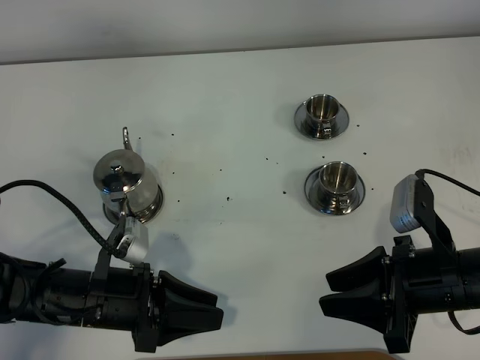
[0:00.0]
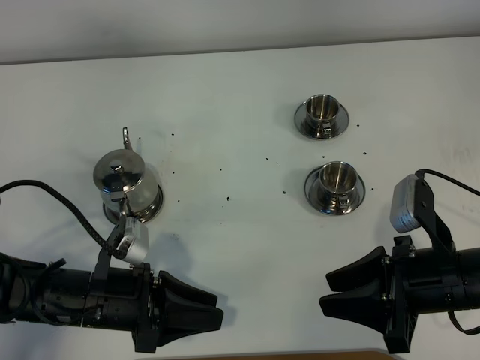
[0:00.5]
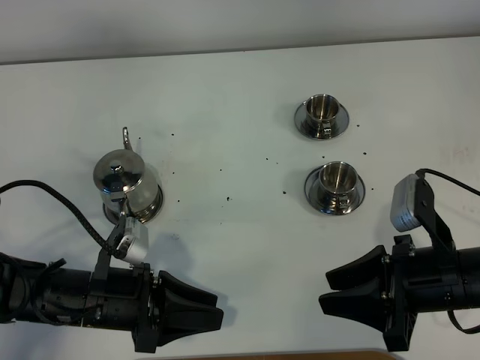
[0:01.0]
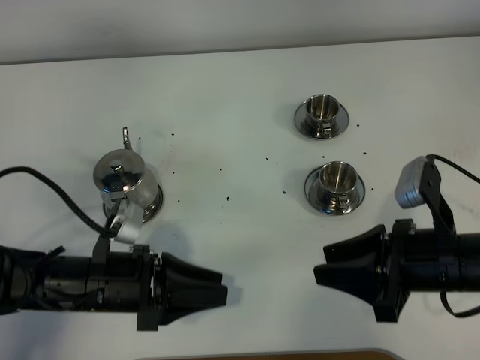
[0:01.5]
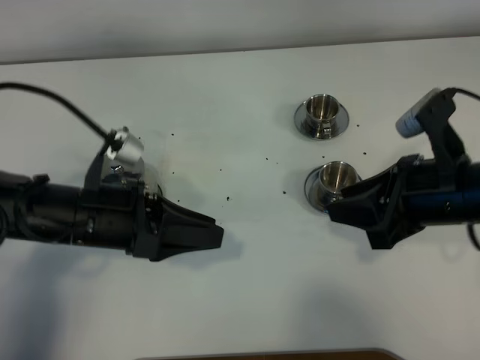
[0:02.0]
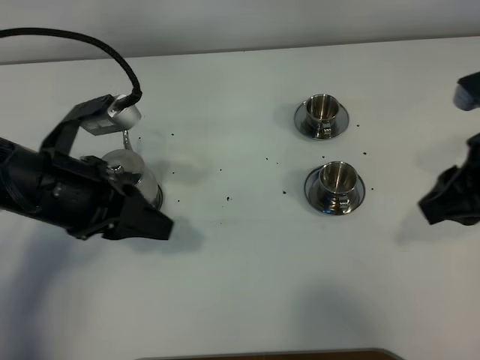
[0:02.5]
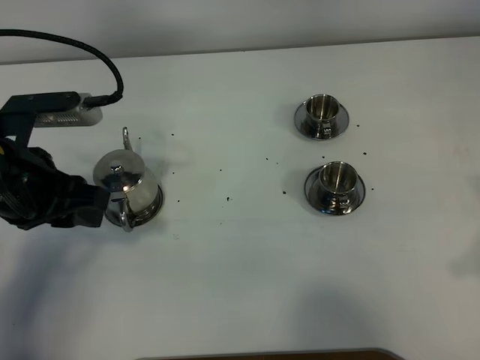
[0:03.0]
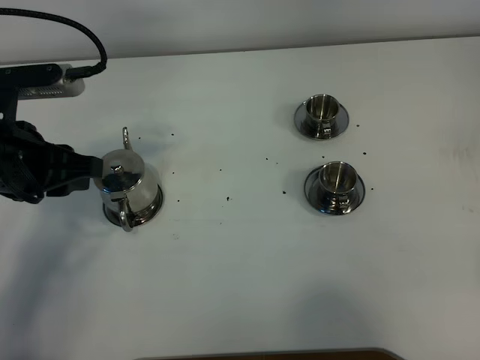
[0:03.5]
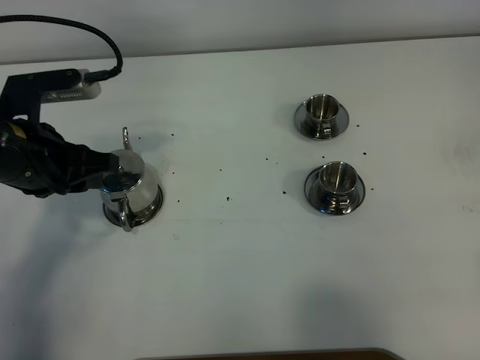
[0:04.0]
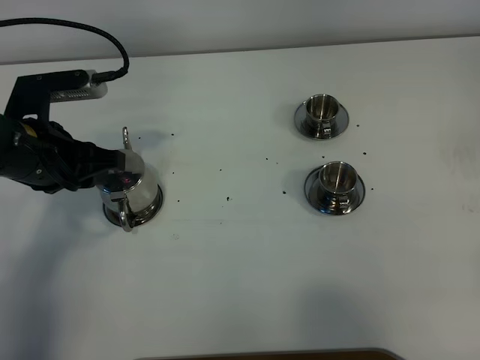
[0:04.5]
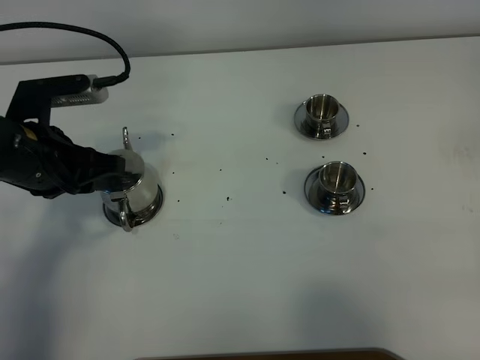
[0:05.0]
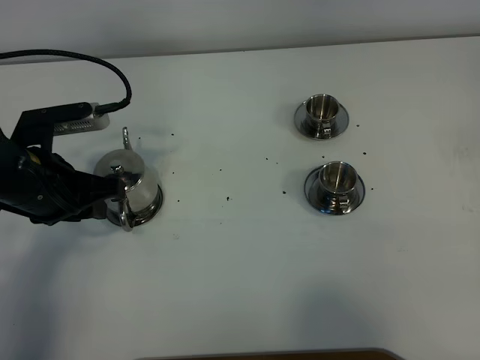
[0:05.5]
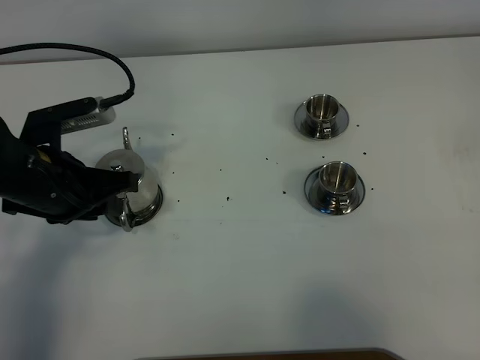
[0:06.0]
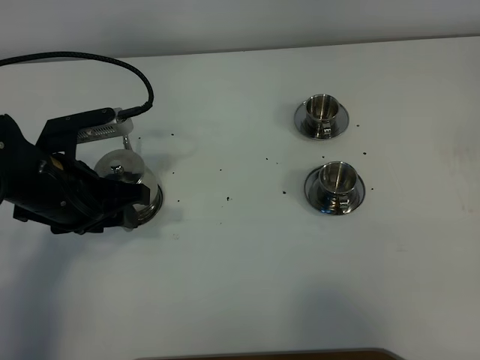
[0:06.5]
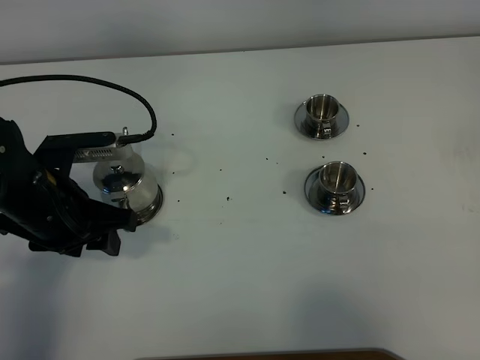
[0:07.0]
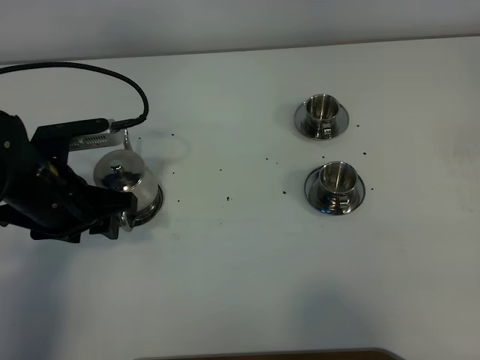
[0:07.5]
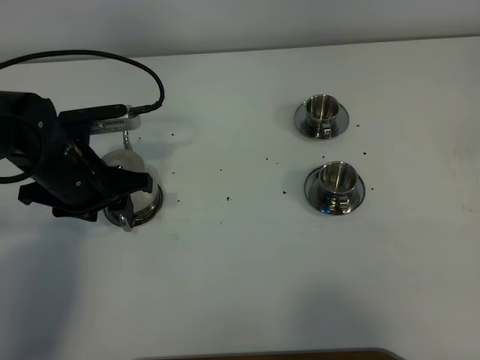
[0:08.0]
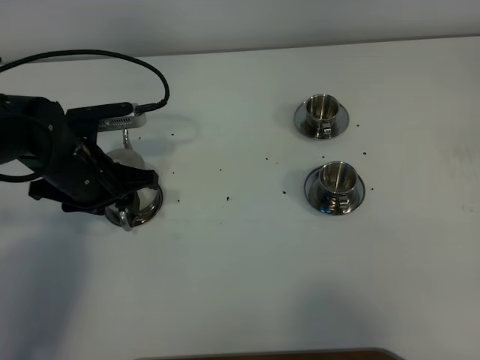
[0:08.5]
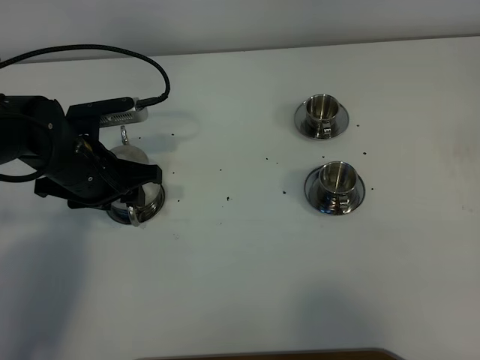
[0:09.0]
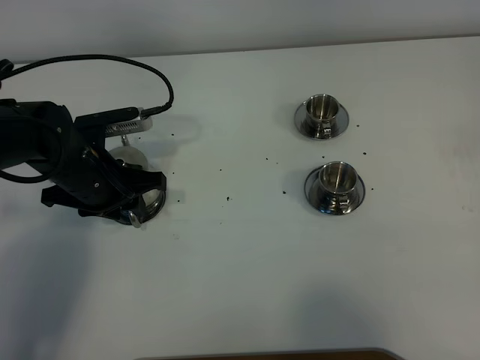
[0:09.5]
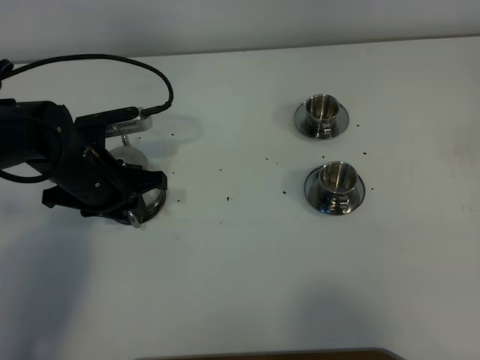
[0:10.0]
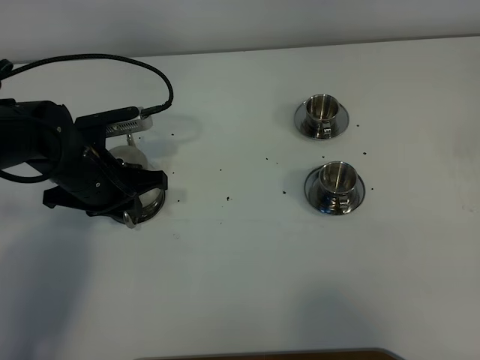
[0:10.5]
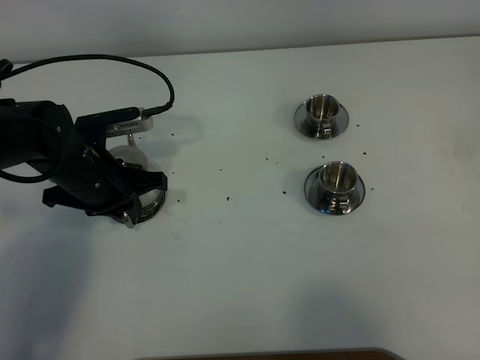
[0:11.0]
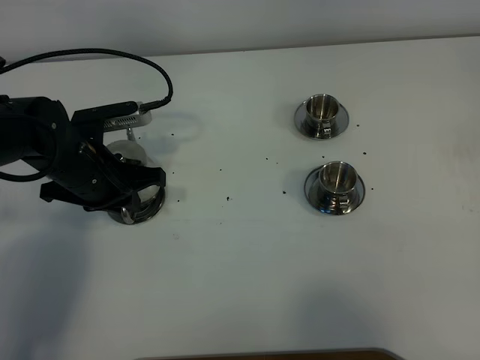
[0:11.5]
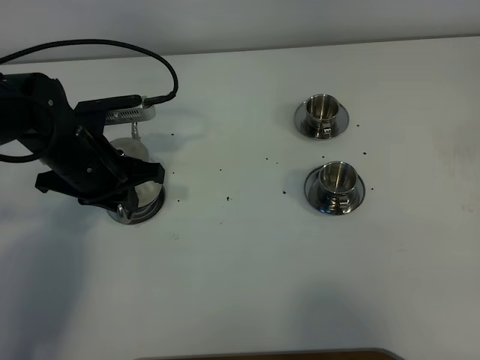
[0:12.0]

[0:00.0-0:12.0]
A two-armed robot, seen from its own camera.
Task of the whole recording: grasp the stainless steel teapot and pour the tea into the two stainless steel teacups one by one, put the stainless steel teapot back in its original place.
Step, 0:00.0 to 0:11.5: Pick up the teapot with the left gripper.
0:00.0 to 0:02.0: Both grippers move upward and forward, roughly 10 cm.
0:02.0 to 0:04.0: The right gripper shifts roughly 25 cm backward and to the right, while the left gripper shifts roughly 10 cm to the left and forward.
0:06.0 to 0:08.0: The left gripper opens its fingers.
0:08.0 to 0:10.0: The left gripper closes.
0:10.0 to 0:12.0: The left gripper closes up.

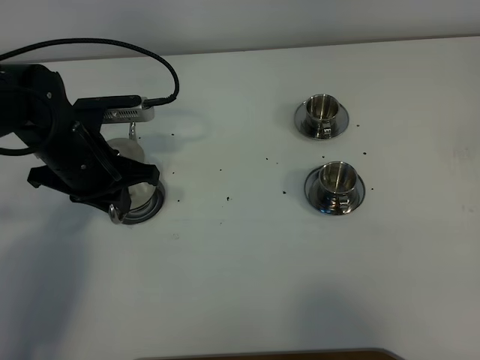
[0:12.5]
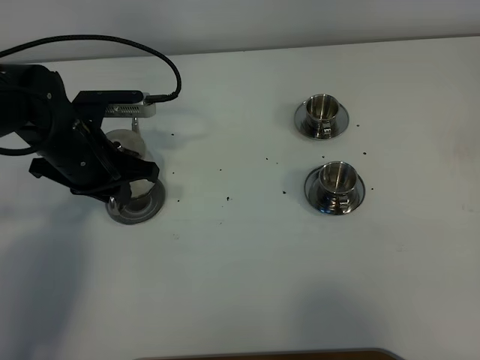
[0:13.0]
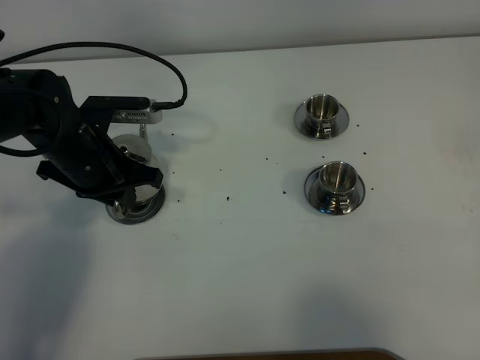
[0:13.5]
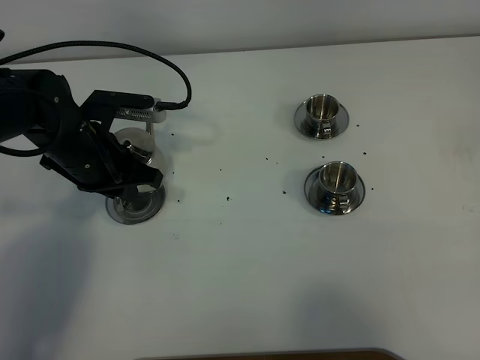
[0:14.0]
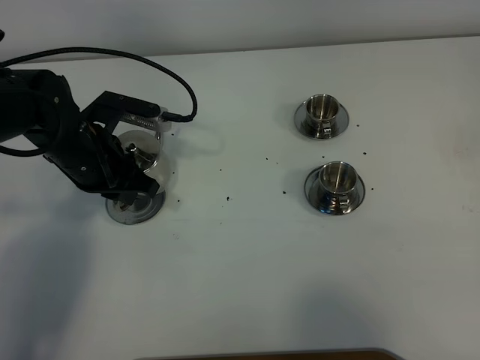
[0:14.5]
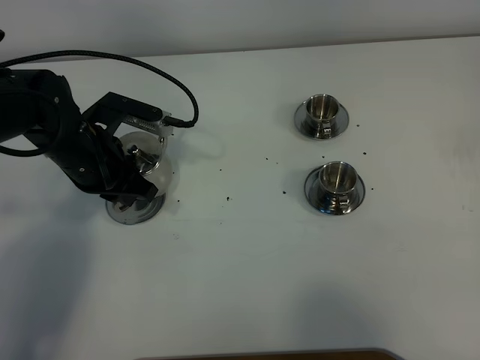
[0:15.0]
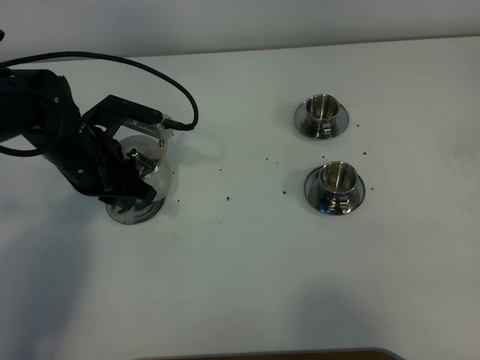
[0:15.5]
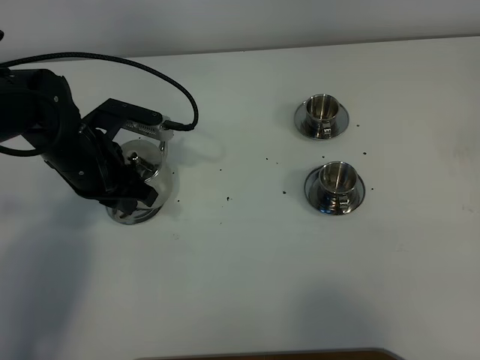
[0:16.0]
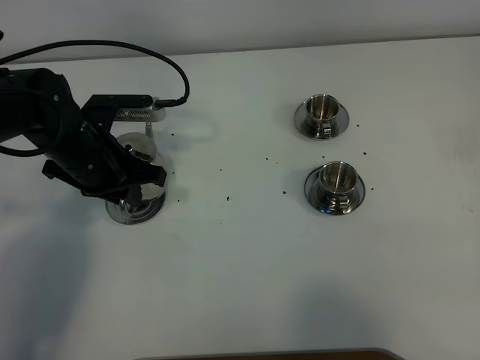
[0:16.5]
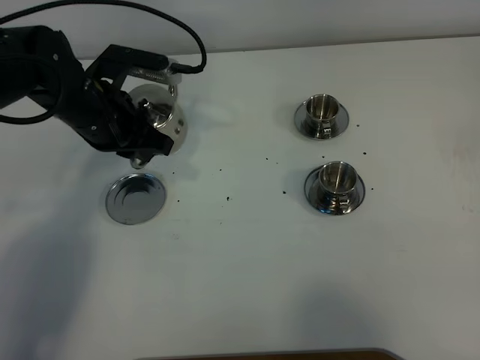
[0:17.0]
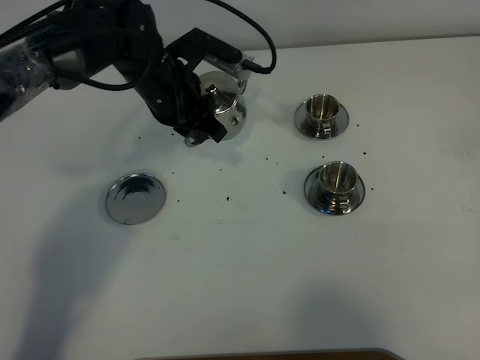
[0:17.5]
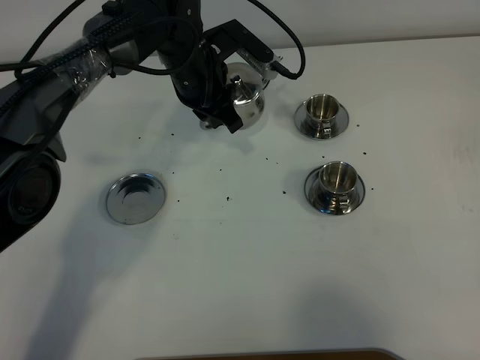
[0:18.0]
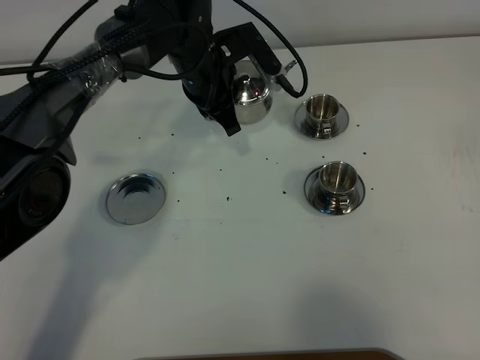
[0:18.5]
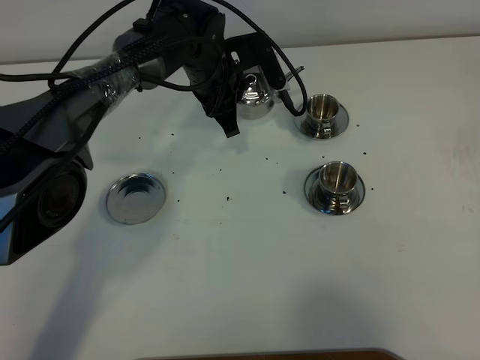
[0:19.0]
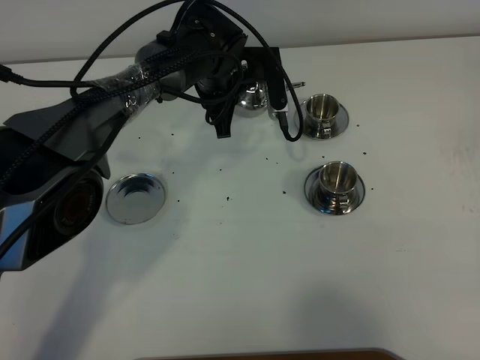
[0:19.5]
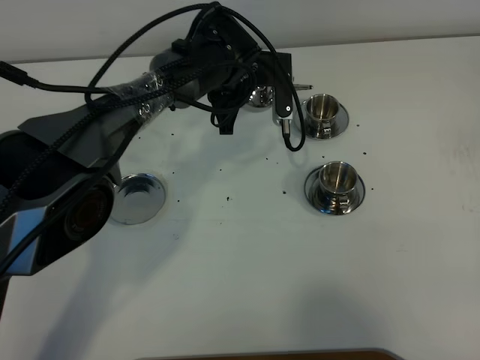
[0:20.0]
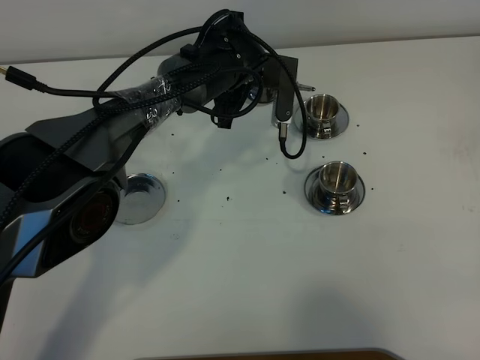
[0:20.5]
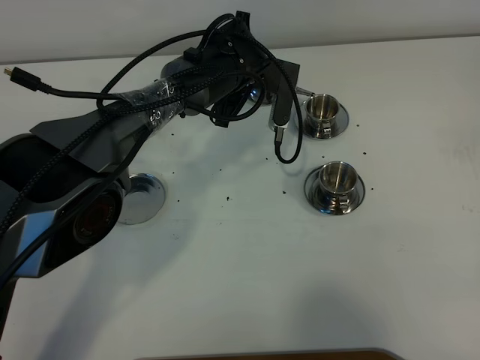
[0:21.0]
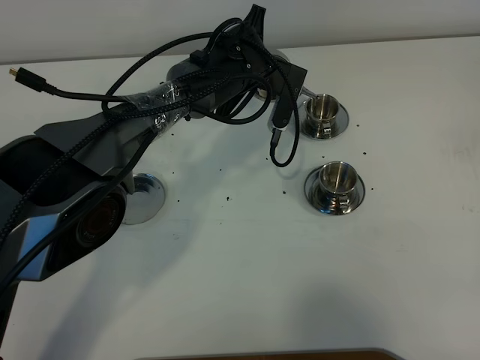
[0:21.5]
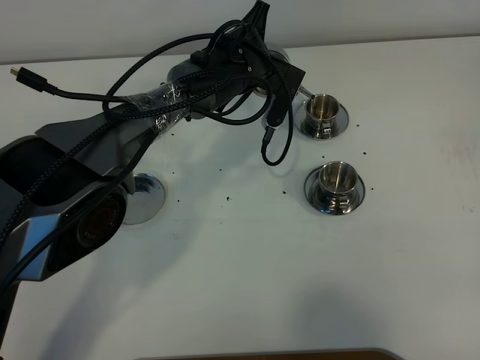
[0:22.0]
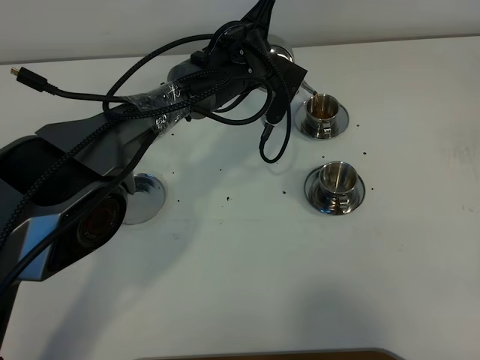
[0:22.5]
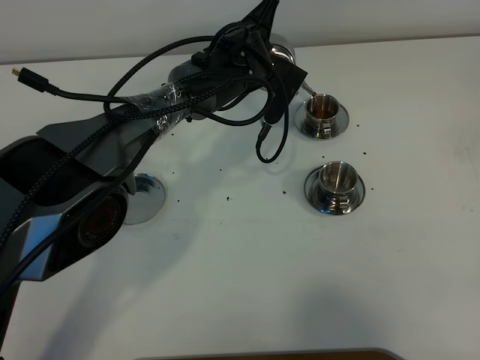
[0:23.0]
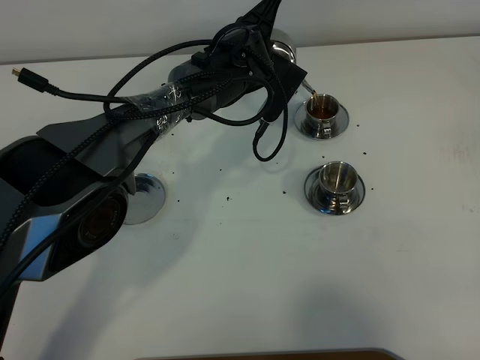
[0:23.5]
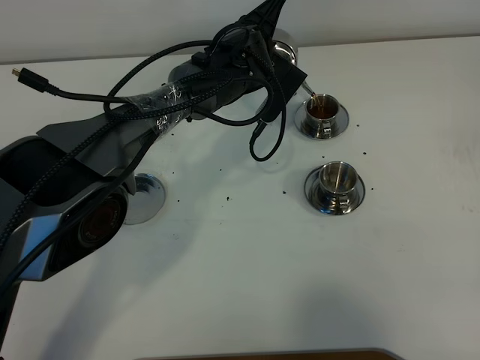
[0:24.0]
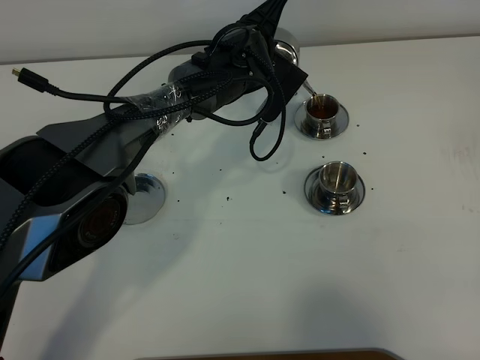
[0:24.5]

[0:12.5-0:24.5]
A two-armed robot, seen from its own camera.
Task of the whole recording: grasp the stainless steel teapot and pour the tea into the two stainless steel teacups one by one, put the stainless steel teapot back in its original place.
0:14.5 to 0:16.5: The grippers stay close to where they were, moving slightly.
0:16.5 to 0:18.5: The left gripper goes approximately 20 cm to the right and forward.
0:18.5 to 0:20.5: The left gripper changes place by about 5 cm.
0:22.5 to 0:24.5: The grippers stay close to where they were, moving slightly.

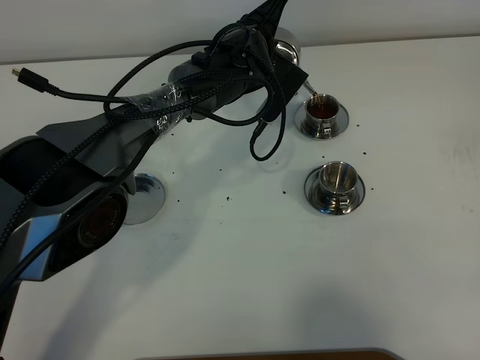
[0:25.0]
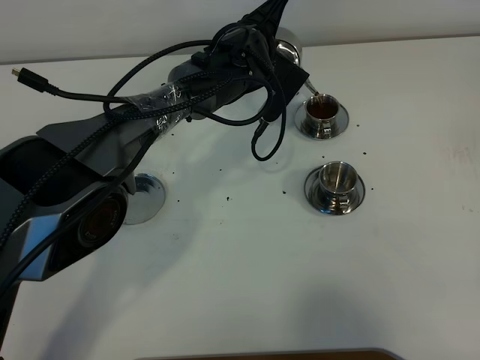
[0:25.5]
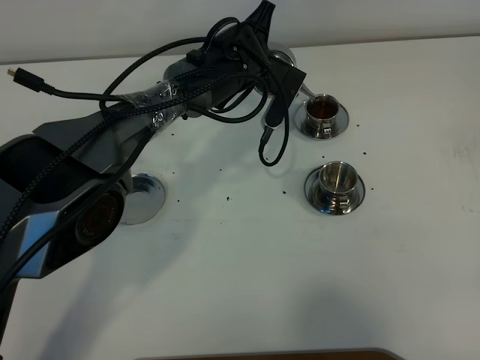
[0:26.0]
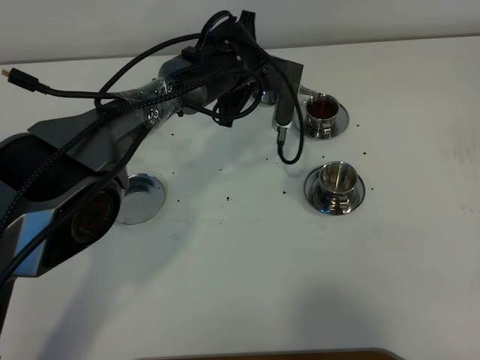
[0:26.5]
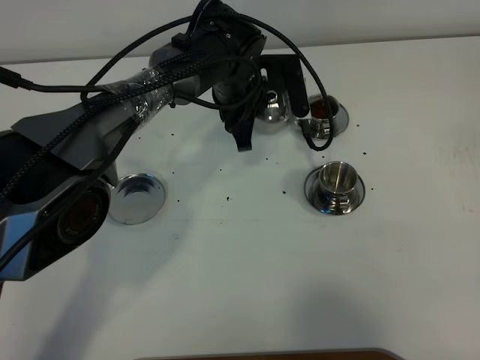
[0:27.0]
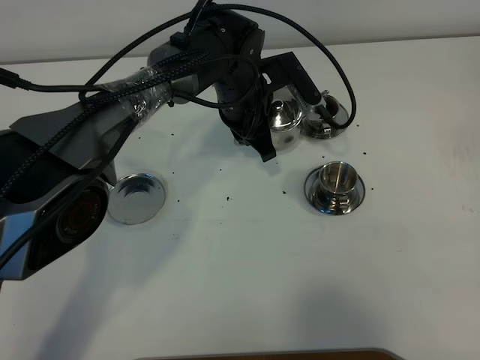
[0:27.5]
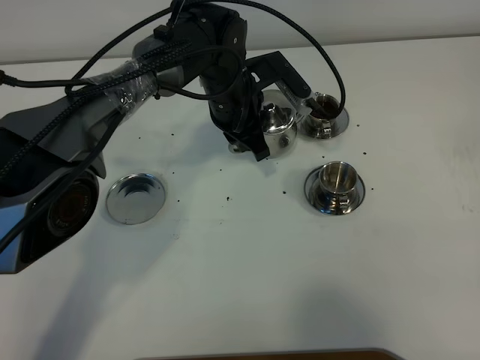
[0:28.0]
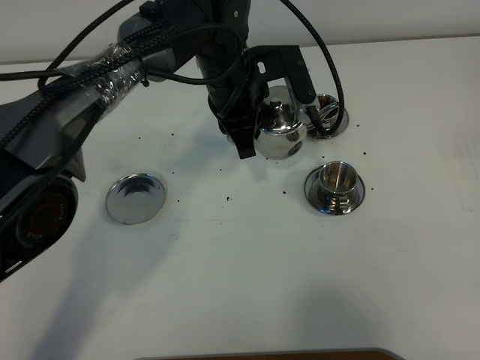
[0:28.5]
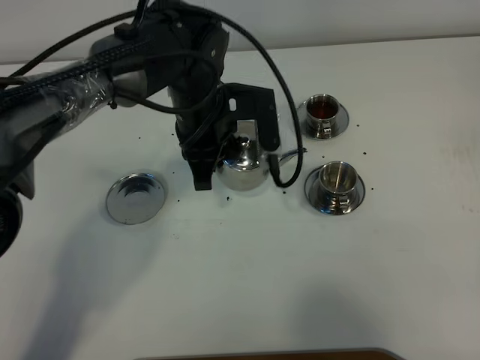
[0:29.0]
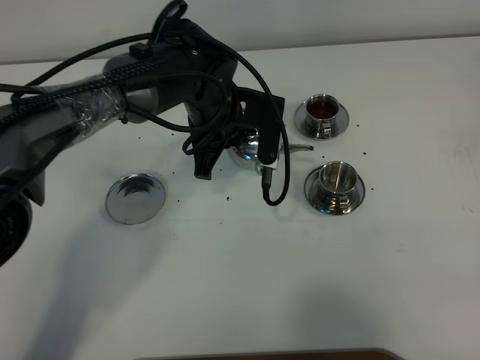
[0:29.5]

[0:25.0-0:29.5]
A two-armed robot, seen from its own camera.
Task of the whole recording: grasp the stainless steel teapot and pour the tea into the two stainless steel teacups one by one, put the stainless steel teapot back in its original place.
0:27.0 to 0:29.5: The left gripper goes roughly 5 cm backward.
